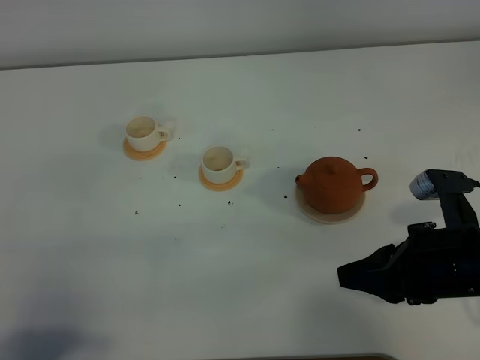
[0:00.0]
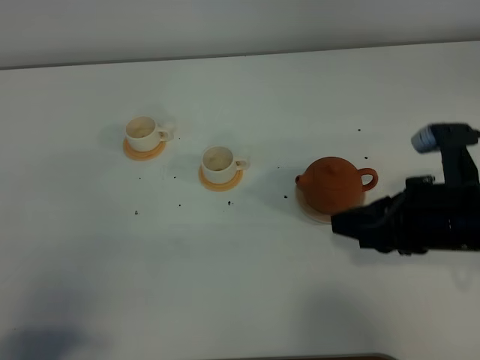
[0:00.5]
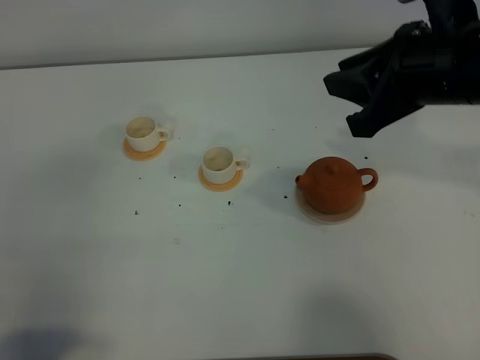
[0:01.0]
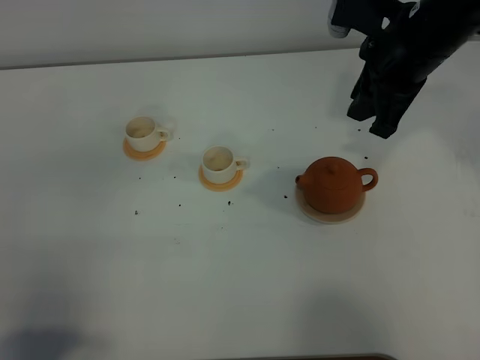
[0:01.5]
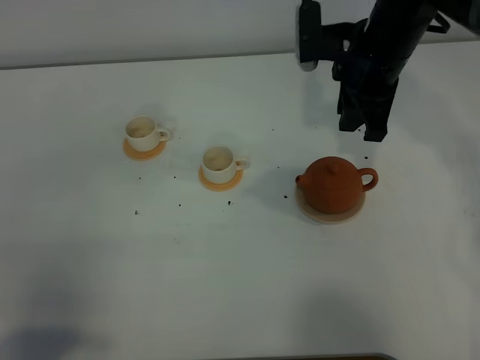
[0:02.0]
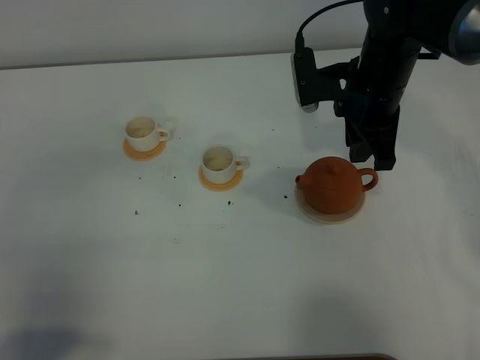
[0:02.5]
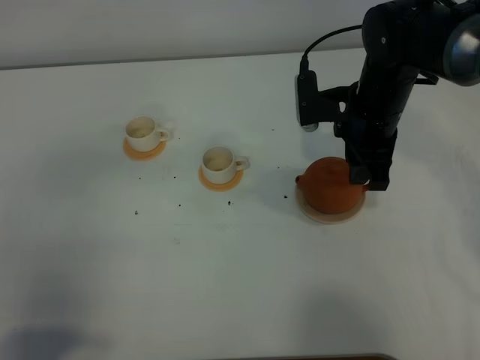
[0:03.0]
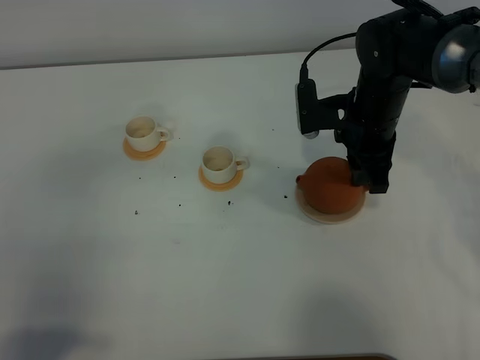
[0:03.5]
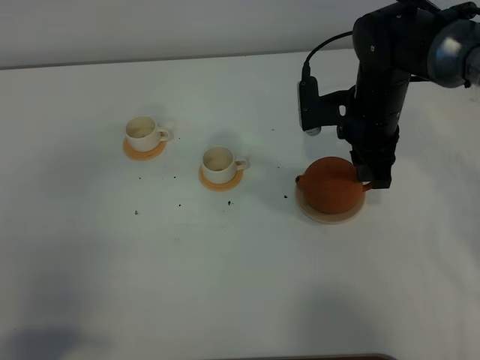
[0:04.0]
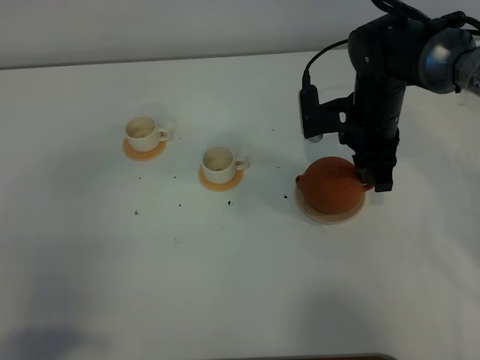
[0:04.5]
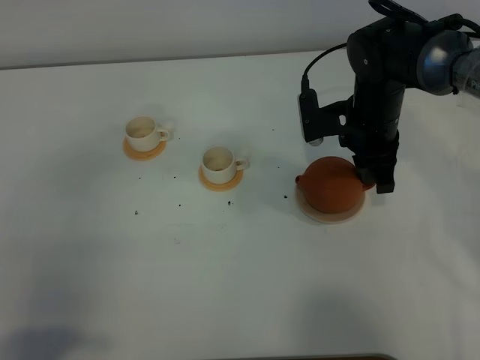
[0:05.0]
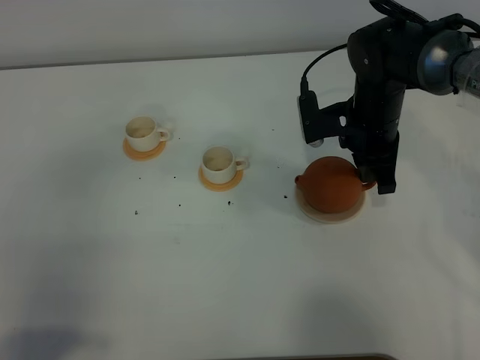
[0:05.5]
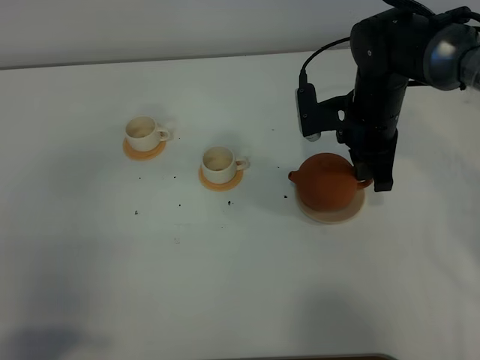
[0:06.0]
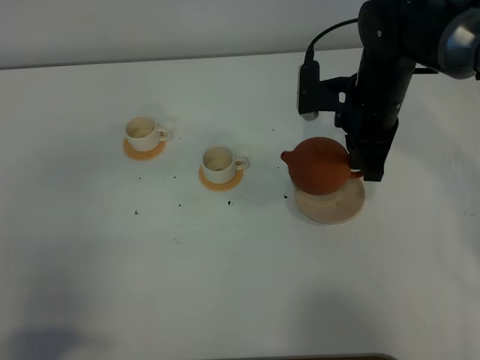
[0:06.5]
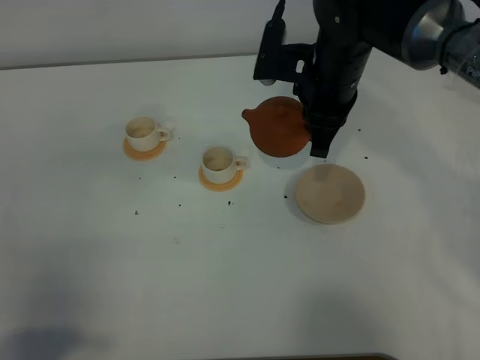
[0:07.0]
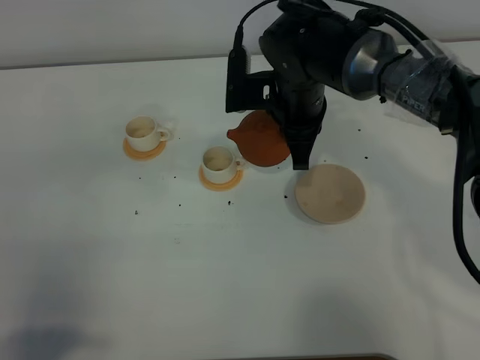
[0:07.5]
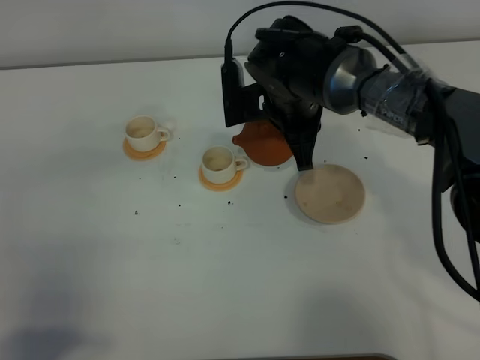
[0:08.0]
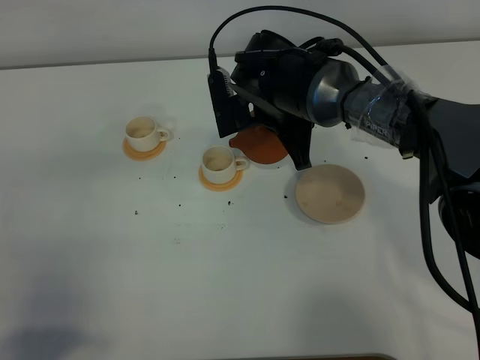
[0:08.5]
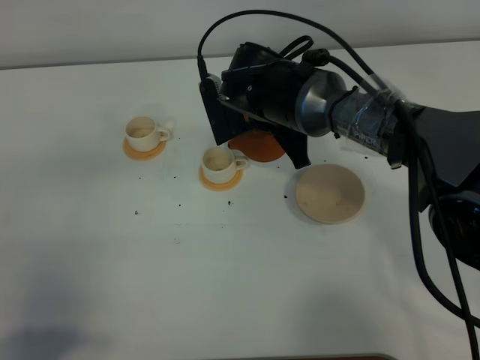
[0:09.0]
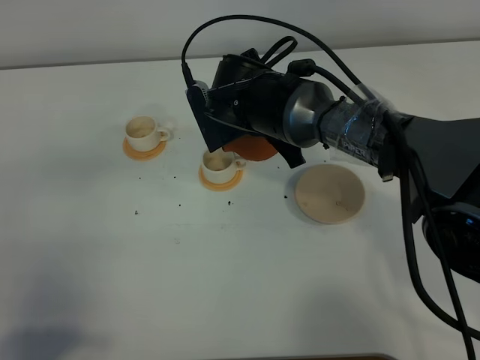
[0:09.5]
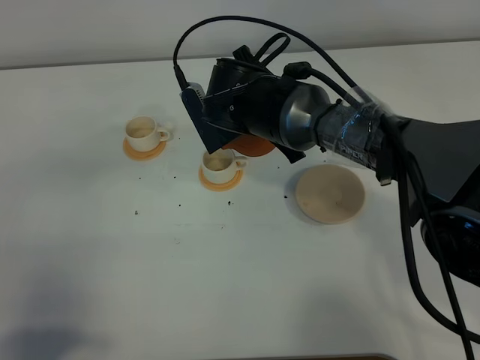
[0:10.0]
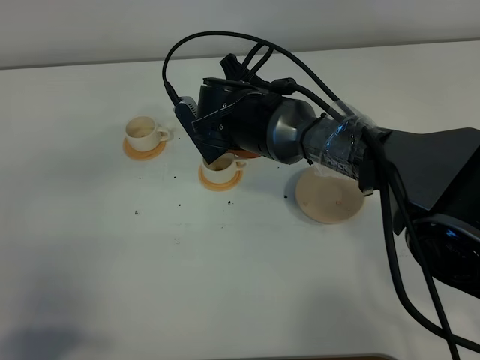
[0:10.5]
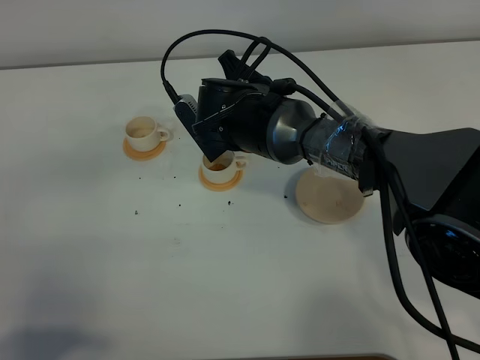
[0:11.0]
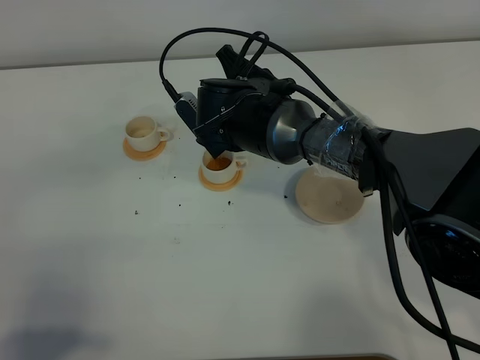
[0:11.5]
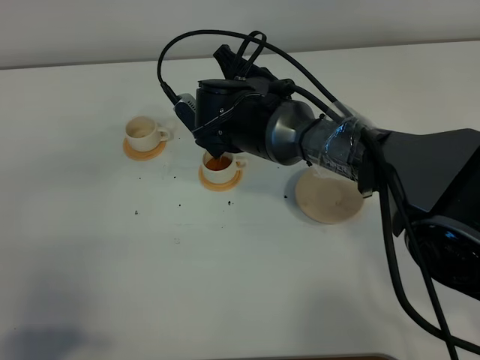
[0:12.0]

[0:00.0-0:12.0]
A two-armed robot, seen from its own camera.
Task of the whole recording: grasp the brown teapot and pour the tea into the two white teacups one by one, put the brown teapot back in its original place.
Step, 0:00.0 to 0:06.0: Pick up the teapot with the right gripper.
0:00.0 to 0:02.0: The right gripper shifts about 25 cm forward and to the left.
0:02.0 to 0:04.0: The right gripper is displaced downward by some 10 cm.
0:04.0 to 0:06.0: The right gripper closes.
0:06.0 to 0:08.0: The right gripper goes some 10 cm to the left.
0:10.0 to 0:12.0: The grippers move only a little.

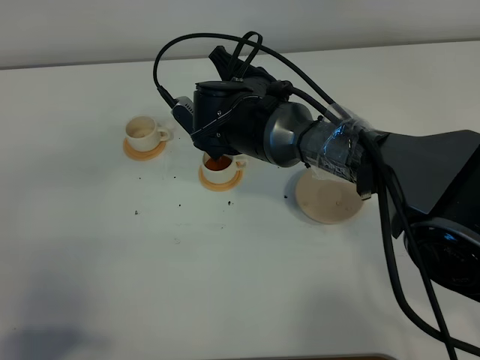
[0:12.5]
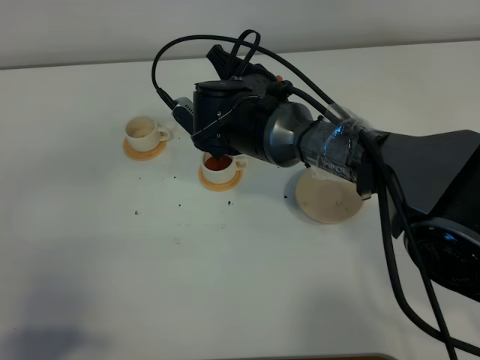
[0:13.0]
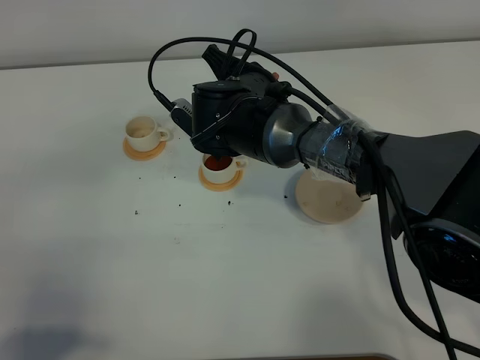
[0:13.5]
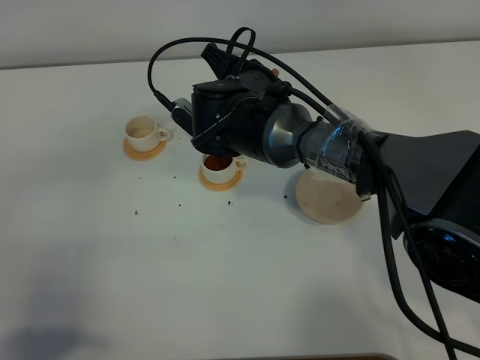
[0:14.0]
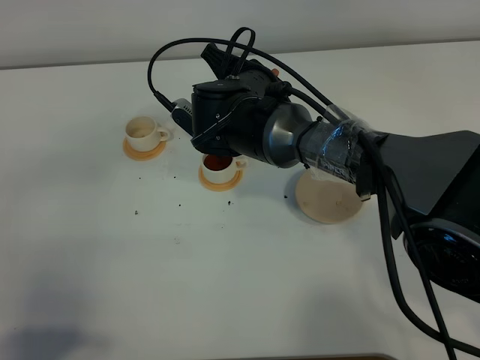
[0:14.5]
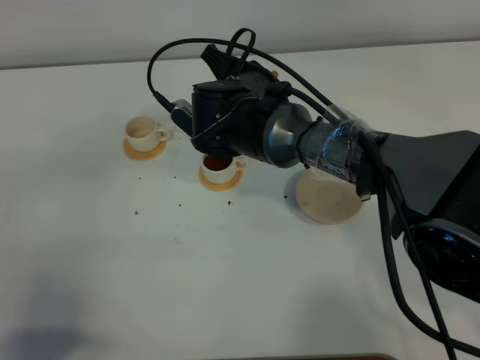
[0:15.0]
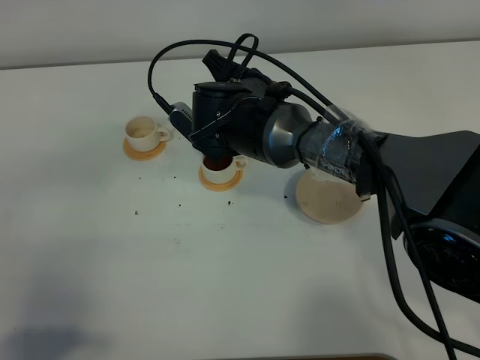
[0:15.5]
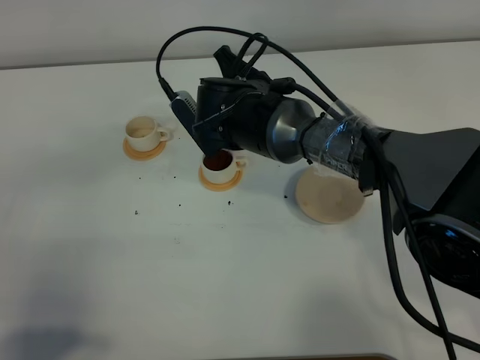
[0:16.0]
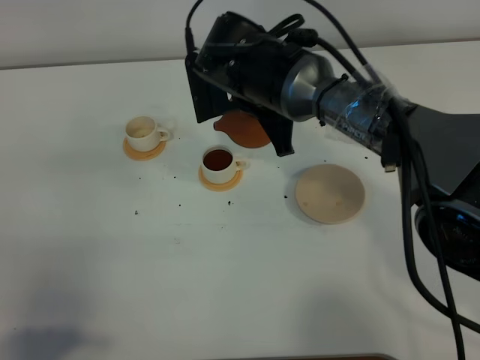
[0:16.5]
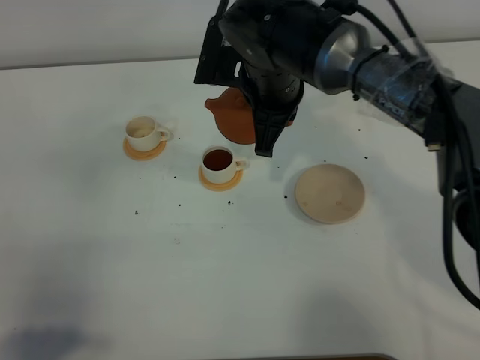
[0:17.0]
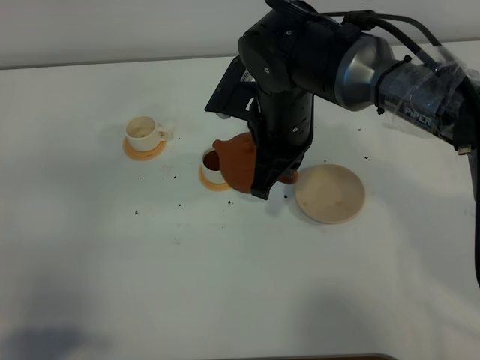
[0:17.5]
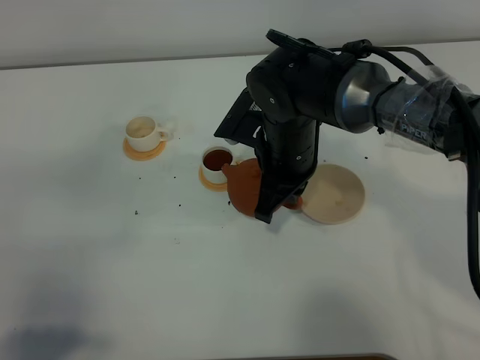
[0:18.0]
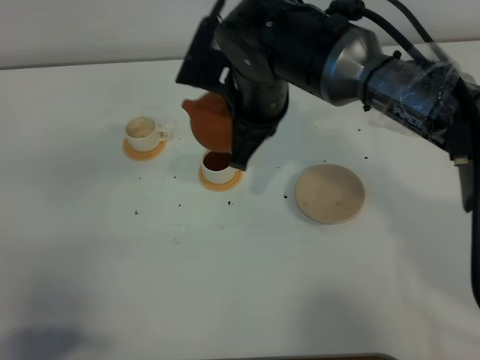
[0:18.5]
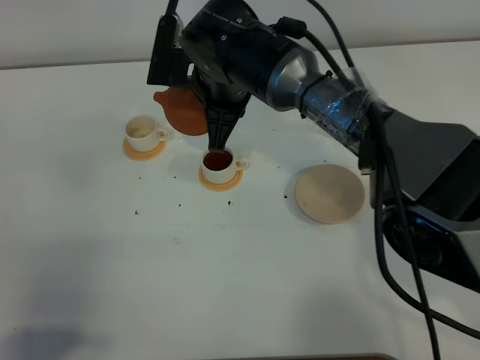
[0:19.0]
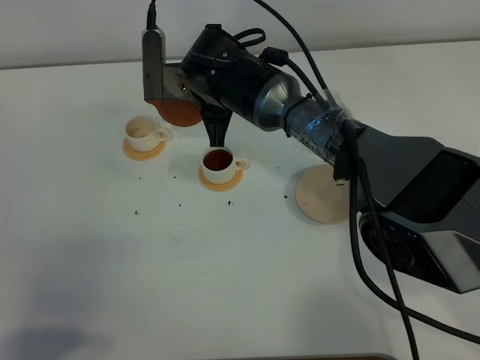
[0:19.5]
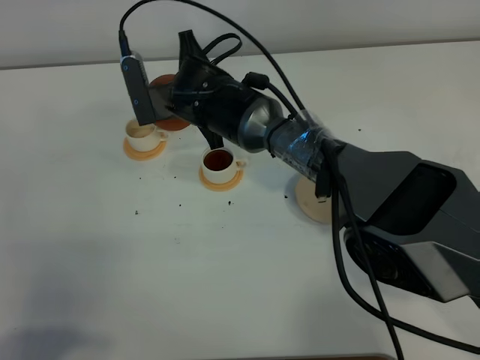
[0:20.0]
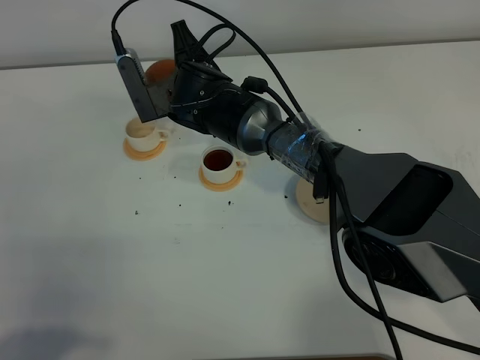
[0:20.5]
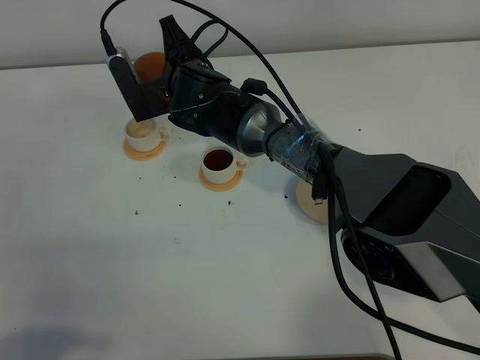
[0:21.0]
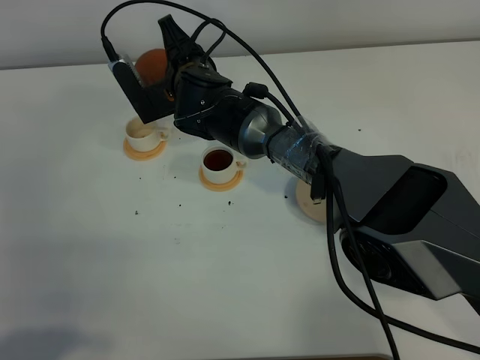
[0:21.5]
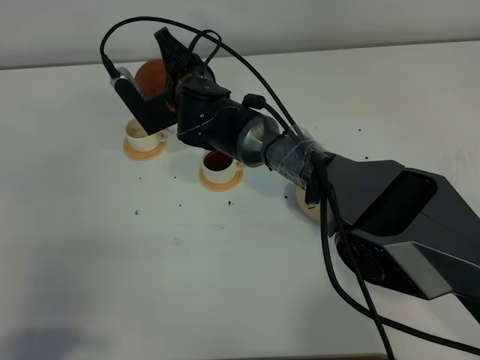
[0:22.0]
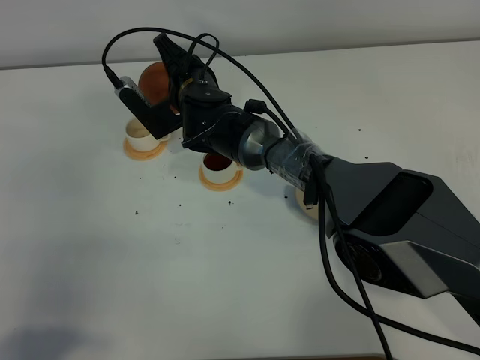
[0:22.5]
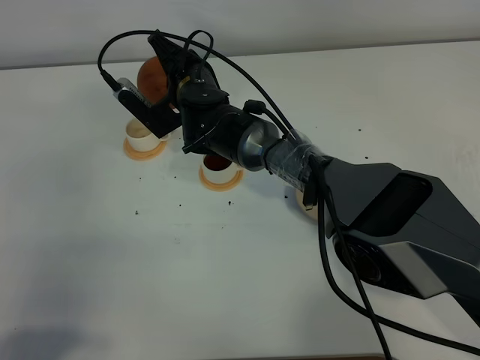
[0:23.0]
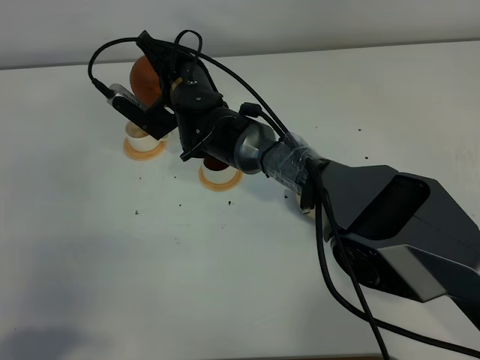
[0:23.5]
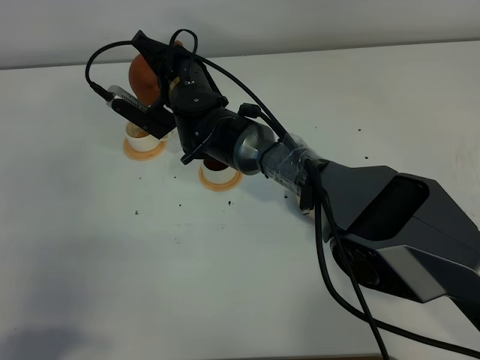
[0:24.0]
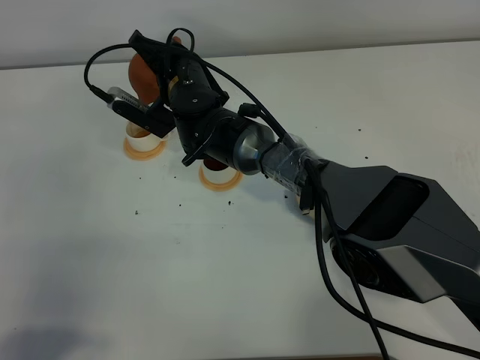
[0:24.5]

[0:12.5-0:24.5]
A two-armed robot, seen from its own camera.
Task of the whole recording: grasp the brown teapot and pour the tea into the two white teacups one by one, put the brown teapot back in its original place.
0:12.5 to 0:14.5: There are only small adjustments of the grippers.
0:18.5 to 0:20.5: The right gripper travels to the left, downward and forward by roughly 15 cm.
0:22.5 to 0:24.5: The grippers move only a little.

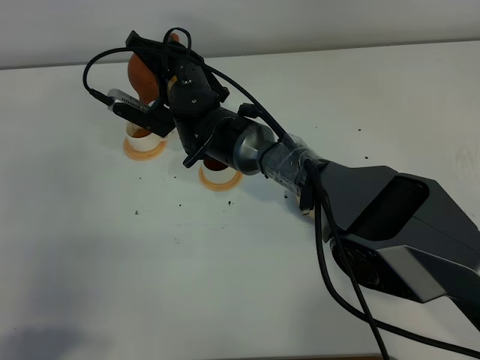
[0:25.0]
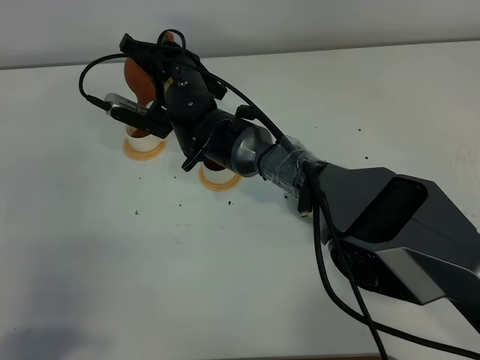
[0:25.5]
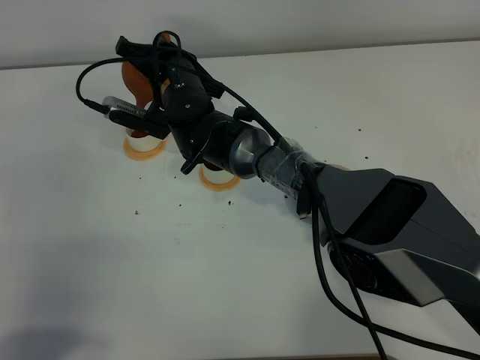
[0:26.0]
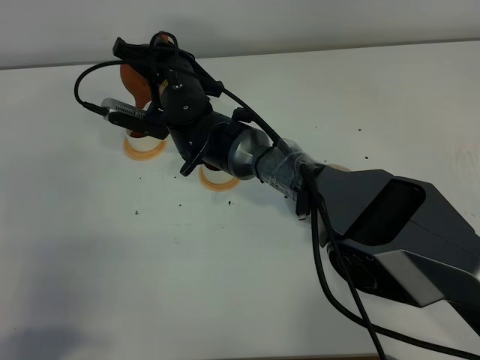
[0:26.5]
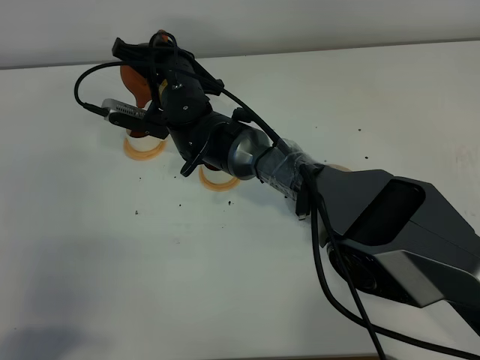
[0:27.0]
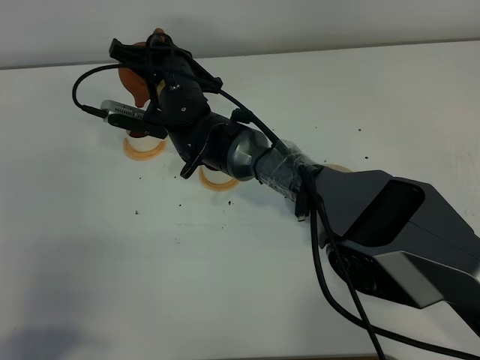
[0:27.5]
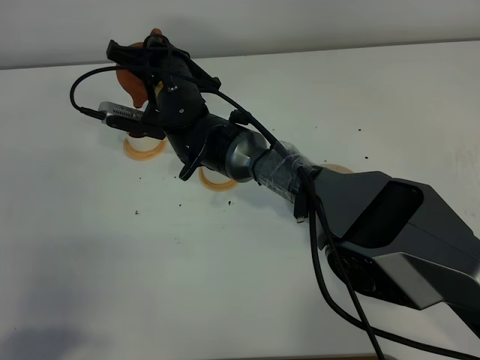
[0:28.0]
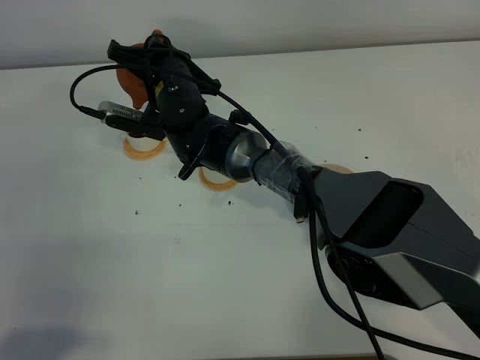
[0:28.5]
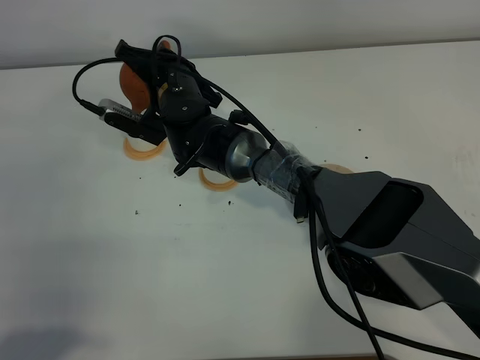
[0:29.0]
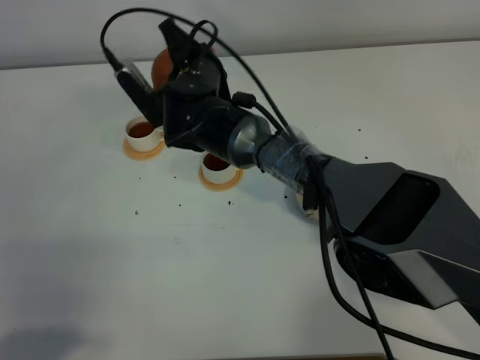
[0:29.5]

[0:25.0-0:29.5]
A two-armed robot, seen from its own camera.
Task of the whole recording: grasp the brown teapot and pour the tea into the two white teacups one by one, put the brown teapot back in its original place.
0:25.0 to 0:27.0: There are only small adjustments of the grippers.
